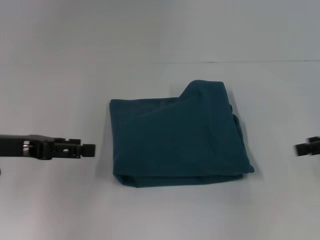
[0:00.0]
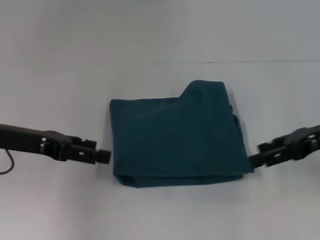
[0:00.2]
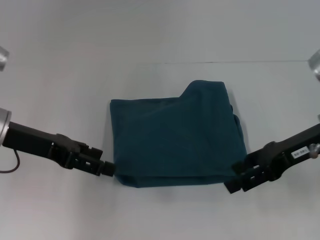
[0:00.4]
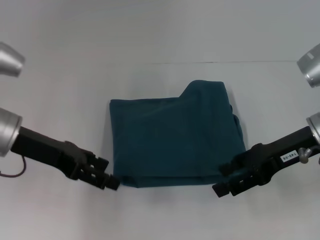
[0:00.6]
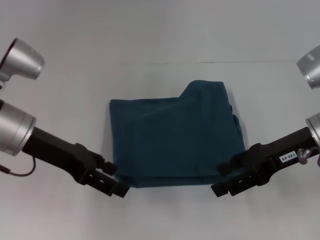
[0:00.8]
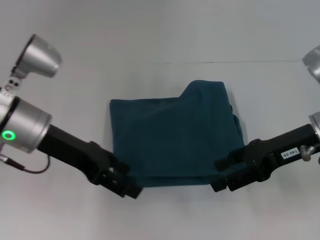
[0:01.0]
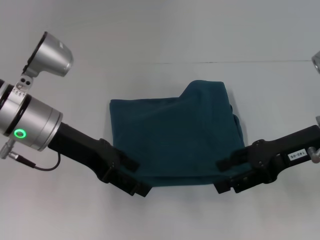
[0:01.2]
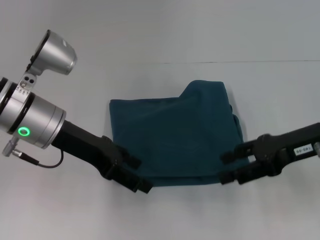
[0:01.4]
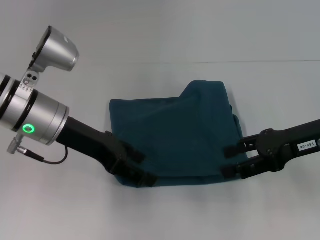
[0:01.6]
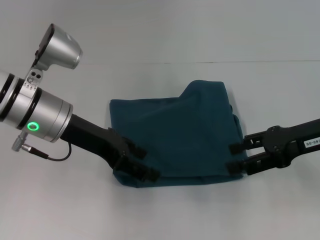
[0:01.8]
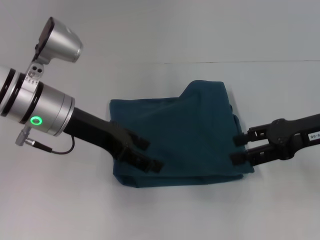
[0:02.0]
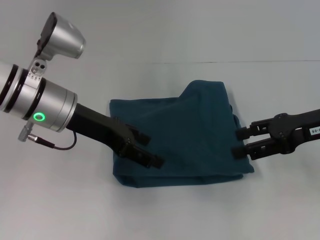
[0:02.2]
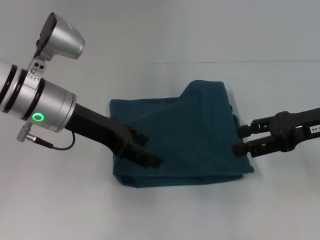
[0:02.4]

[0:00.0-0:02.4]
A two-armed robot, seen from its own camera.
0:00.0 to 0:01.2: The left gripper is displaced to the right by some 10 cm, while the right gripper moves to the left, approximately 10 cm.
0:01.2 to 0:02.4: There are only small adjustments of the grippers.

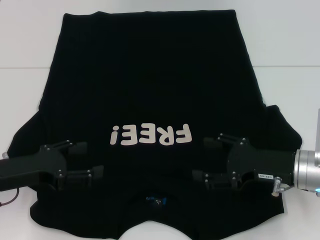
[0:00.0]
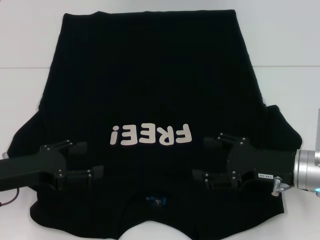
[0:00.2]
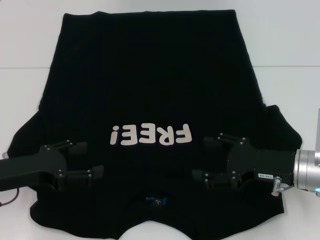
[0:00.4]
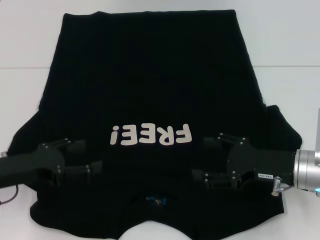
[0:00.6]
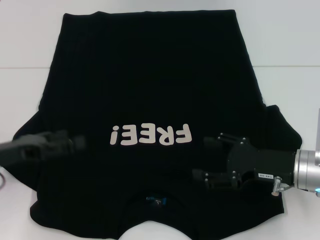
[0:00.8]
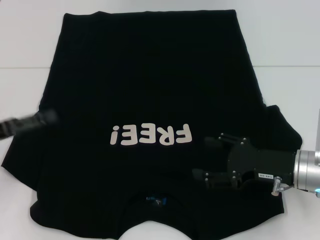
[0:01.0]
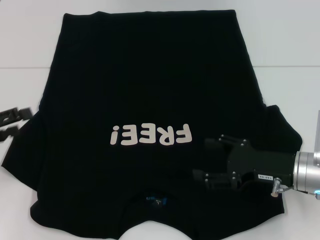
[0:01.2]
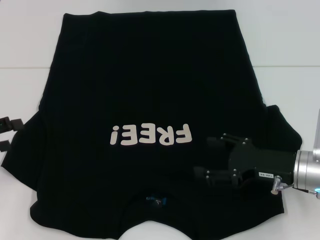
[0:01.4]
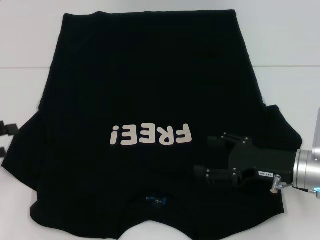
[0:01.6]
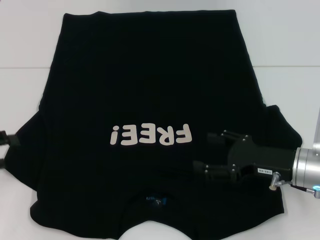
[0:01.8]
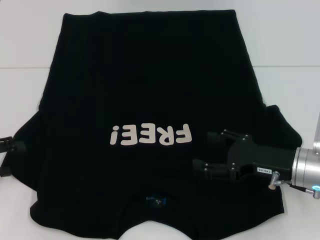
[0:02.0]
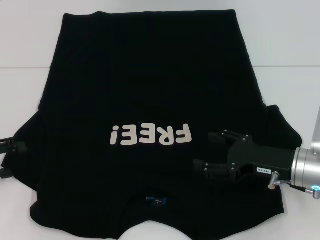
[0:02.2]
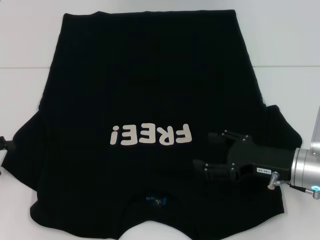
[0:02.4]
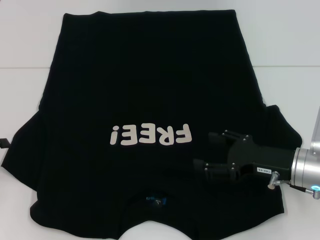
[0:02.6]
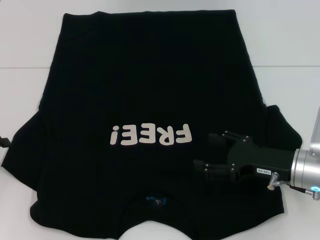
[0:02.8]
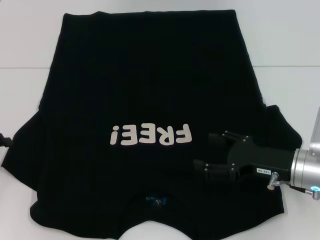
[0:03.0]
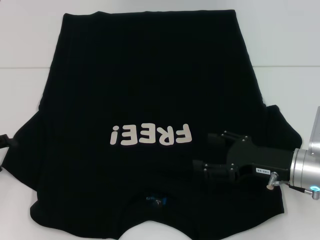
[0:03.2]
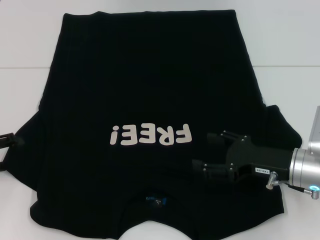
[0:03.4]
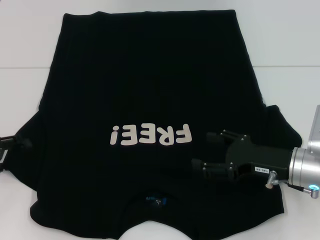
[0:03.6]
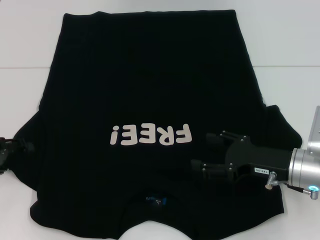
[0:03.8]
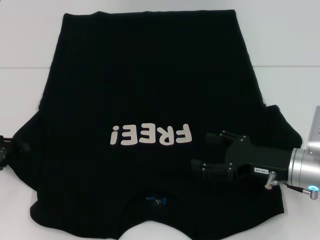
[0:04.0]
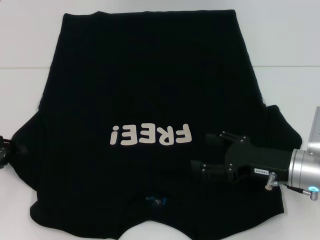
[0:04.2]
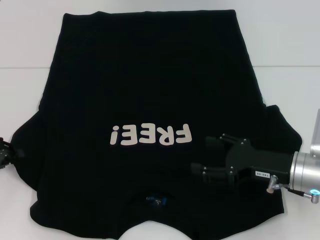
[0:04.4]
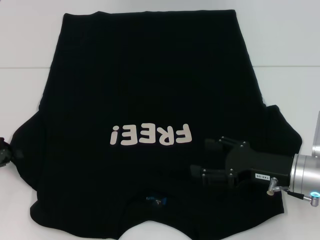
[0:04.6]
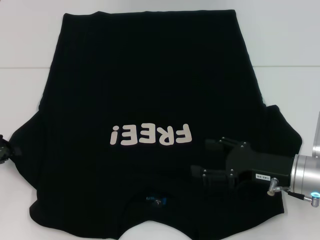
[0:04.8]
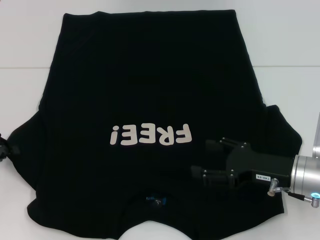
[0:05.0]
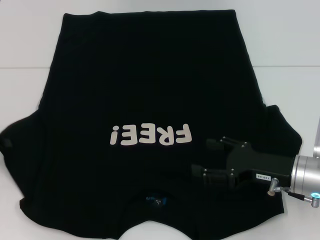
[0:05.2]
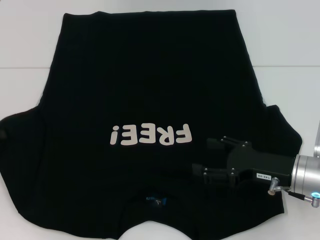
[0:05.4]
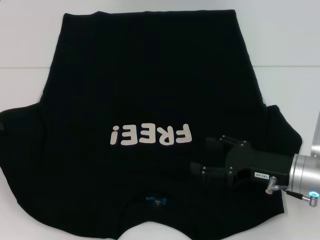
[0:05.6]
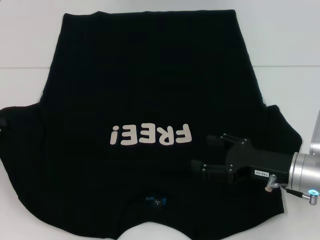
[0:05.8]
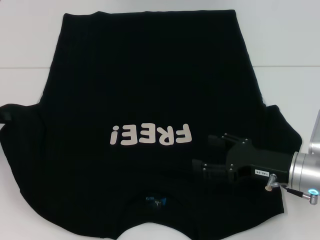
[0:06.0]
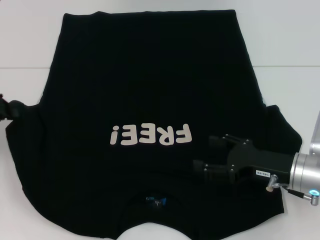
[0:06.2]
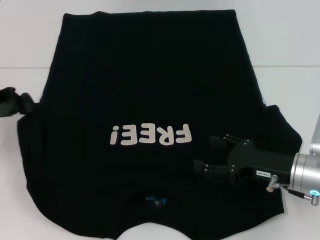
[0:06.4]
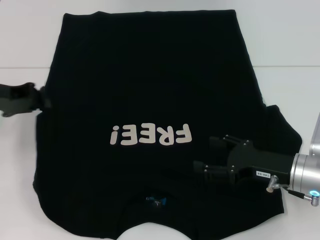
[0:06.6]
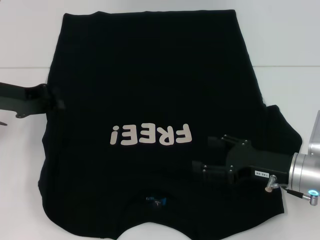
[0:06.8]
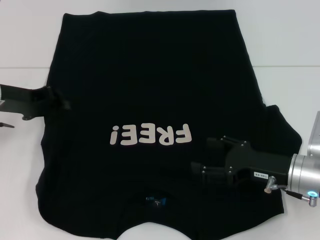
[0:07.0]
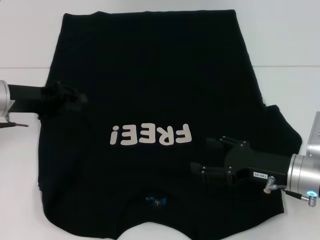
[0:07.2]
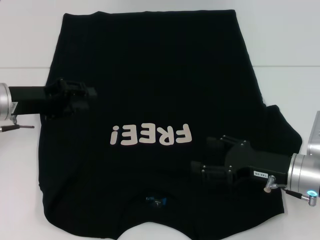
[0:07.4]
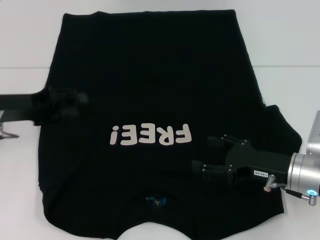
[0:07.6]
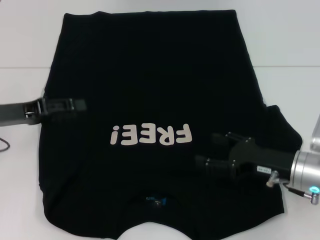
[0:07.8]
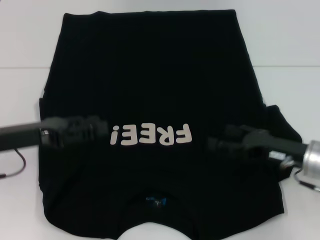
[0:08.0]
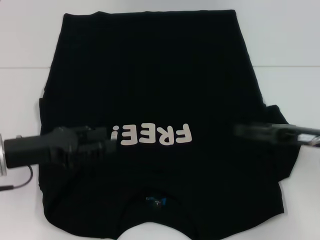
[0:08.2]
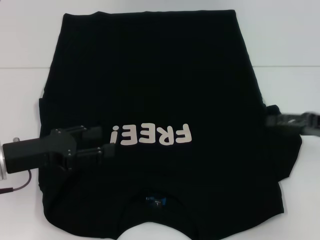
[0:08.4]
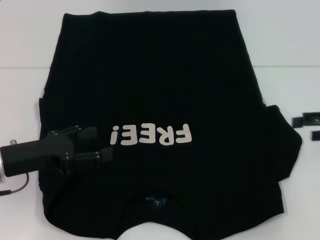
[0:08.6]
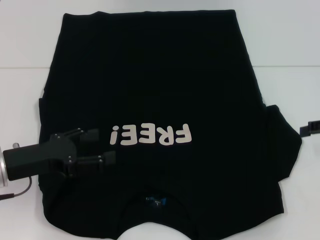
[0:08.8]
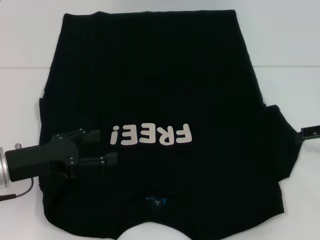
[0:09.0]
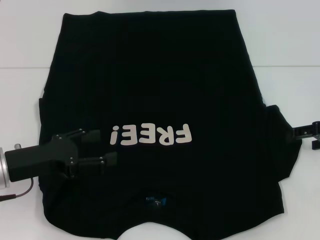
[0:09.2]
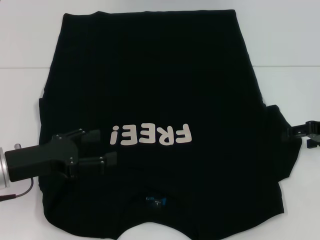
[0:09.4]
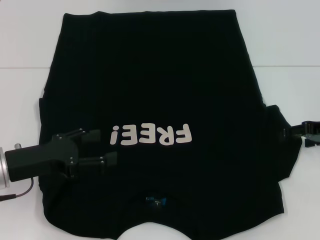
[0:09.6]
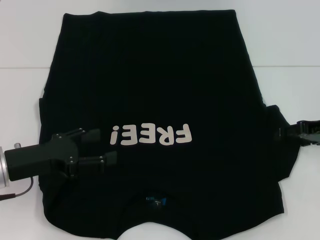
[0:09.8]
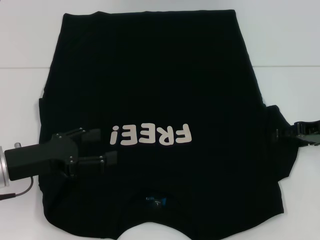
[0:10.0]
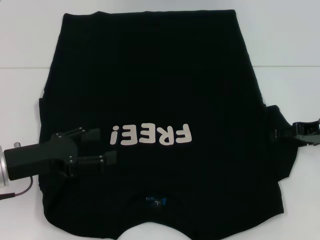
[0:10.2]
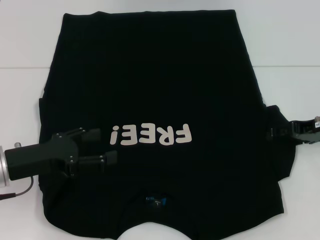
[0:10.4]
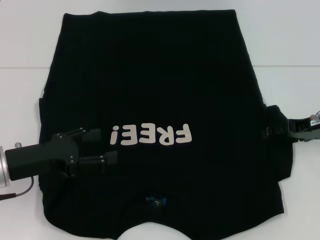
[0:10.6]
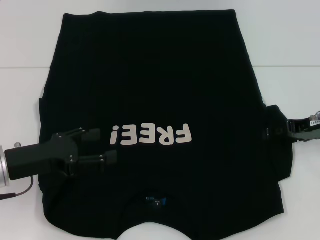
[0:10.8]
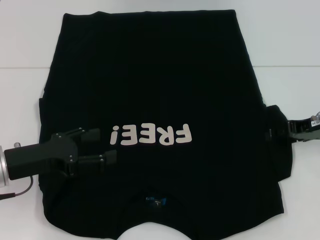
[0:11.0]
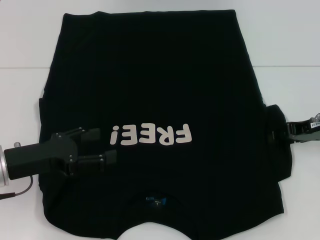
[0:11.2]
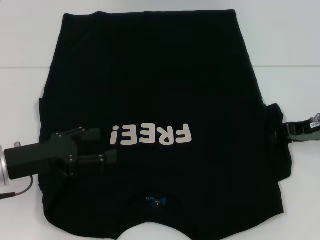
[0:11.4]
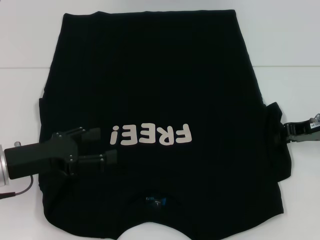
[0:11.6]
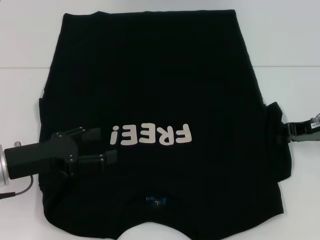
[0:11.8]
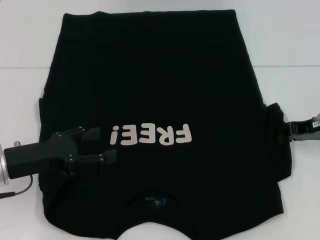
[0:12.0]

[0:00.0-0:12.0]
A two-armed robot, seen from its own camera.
Step, 0:00.0 to 0:07.4: Fold the bottom left sleeve with your left hand.
0:00.0 to 0:01.6: The left gripper heads to the left, covering approximately 10 cm.
0:01.6 to 0:03.0: There are only small adjustments of the grippers.
0:03.0 to 0:04.4: The left gripper closes up.
0:04.4 to 0:06.0: The left gripper goes some 5 cm upward, and closes up.
0:06.0 to 0:07.6: The left gripper goes approximately 10 cm to the right, and opens up.
0:07.6 to 0:09.0: The right gripper goes approximately 15 cm to the right, upward and forward; the left gripper is displaced backward by about 10 cm, and opens.
0:09.0 to 0:10.4: The right gripper goes about 5 cm to the left.
0:10.4 to 0:12.0: The right gripper closes its fingers.

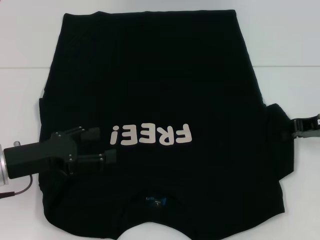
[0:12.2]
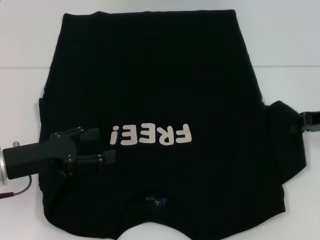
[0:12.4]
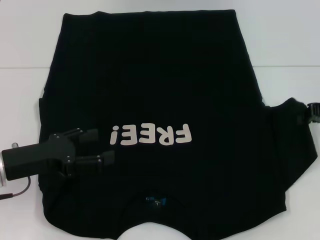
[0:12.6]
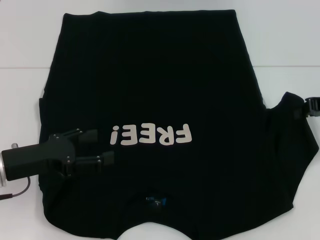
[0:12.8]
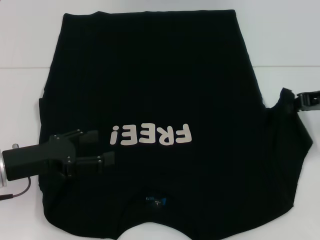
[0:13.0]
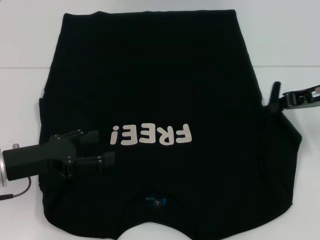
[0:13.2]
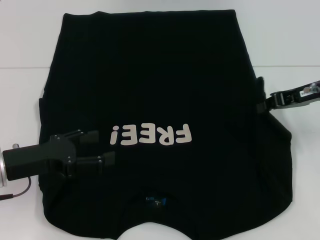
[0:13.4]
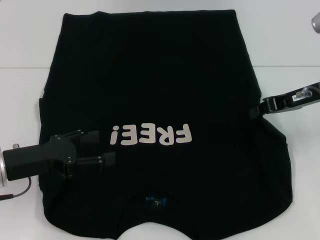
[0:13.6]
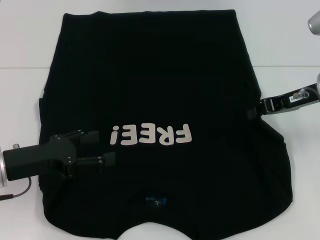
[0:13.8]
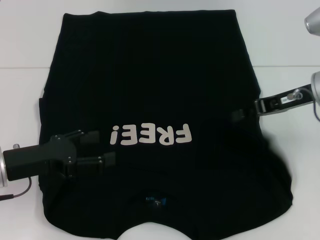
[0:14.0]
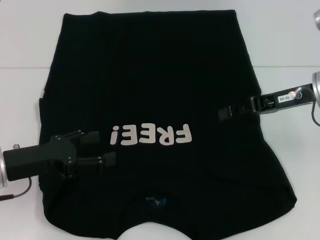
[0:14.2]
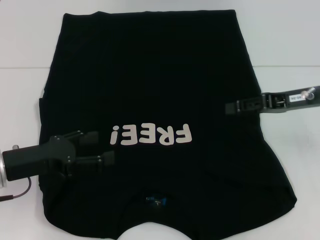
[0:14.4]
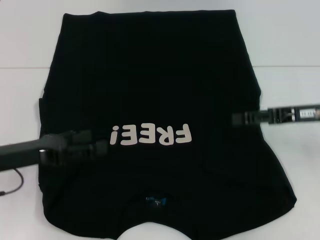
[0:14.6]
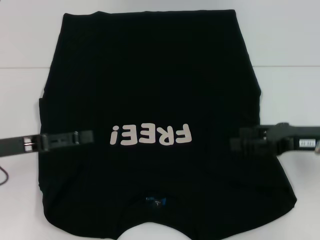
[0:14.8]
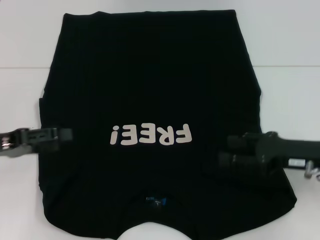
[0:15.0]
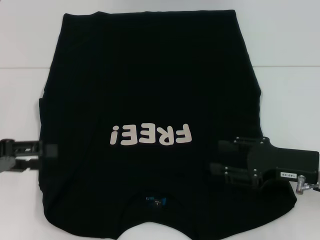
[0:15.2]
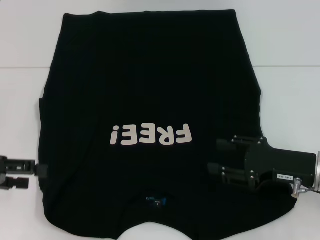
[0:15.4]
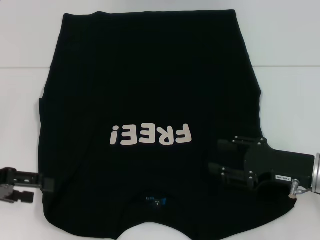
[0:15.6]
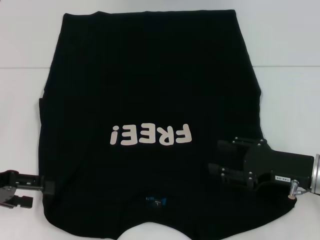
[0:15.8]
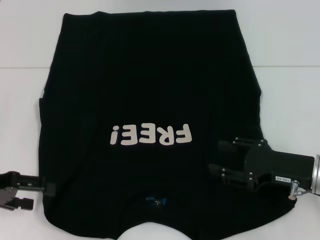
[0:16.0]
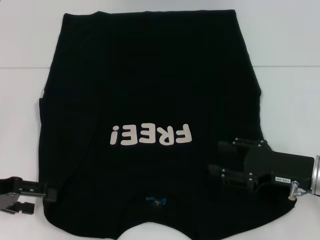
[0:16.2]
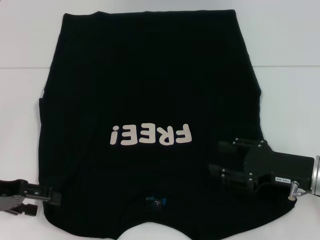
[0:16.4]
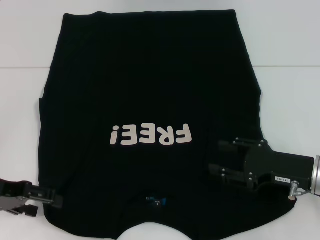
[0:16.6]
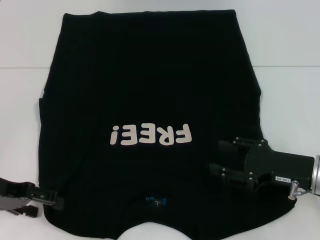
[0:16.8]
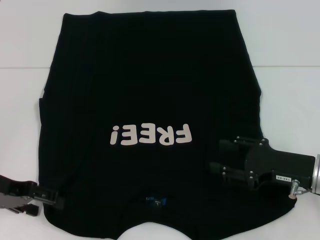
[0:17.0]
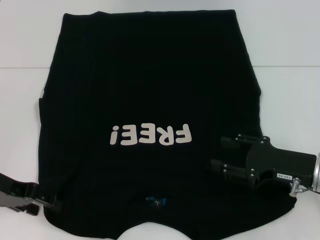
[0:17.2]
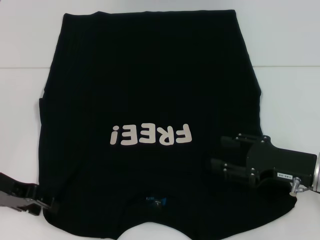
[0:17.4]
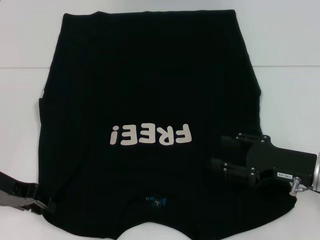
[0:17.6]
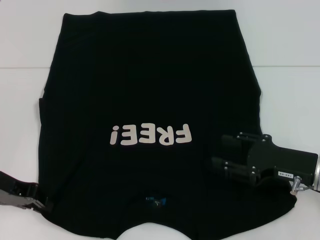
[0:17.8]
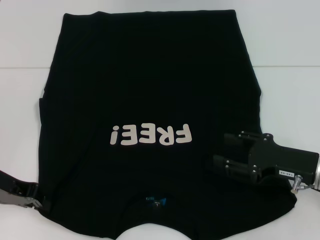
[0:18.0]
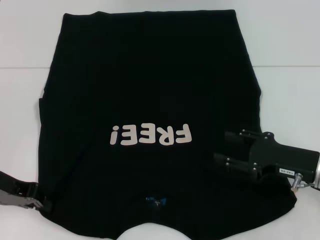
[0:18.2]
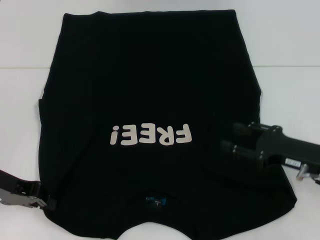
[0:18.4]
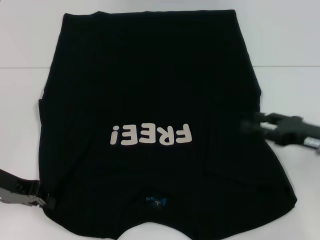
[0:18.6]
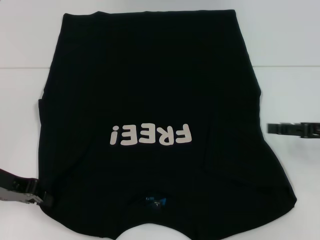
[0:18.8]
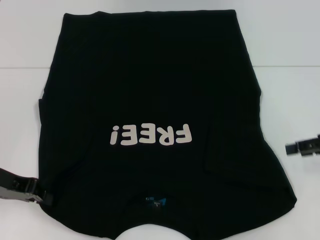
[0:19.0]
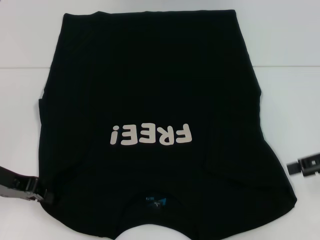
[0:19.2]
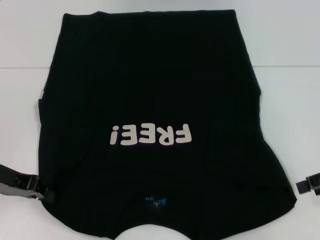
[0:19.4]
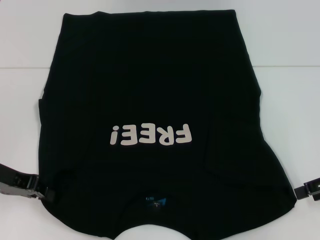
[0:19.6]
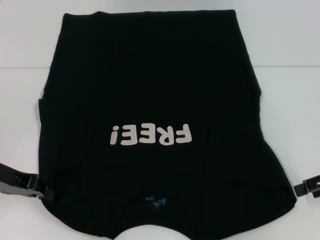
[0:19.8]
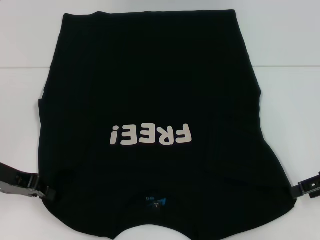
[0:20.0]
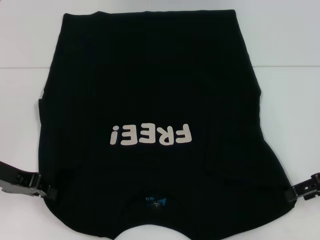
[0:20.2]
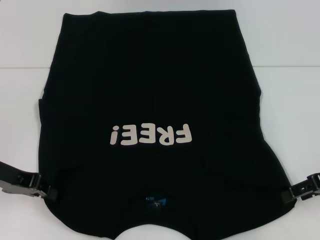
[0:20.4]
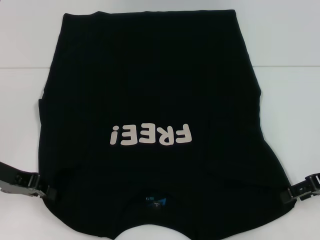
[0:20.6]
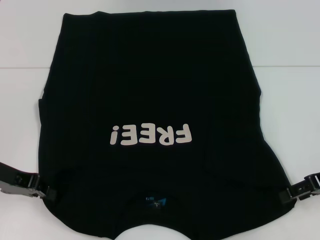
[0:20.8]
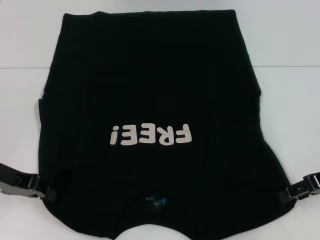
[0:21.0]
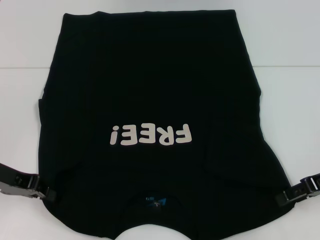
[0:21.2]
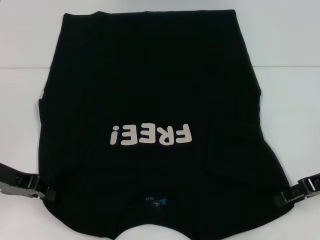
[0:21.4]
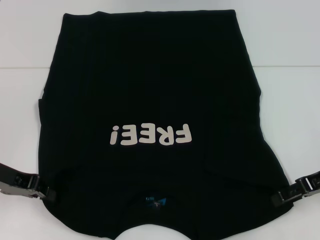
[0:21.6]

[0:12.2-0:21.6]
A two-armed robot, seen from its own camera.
Step, 0:12.2 to 0:14.6: Fold the bottom right sleeve with your right hand.
Step, 0:14.8 to 0:18.8: Grab the bottom left corner with your left hand.
0:12.2 to 0:13.8: The right gripper changes place by about 5 cm.
0:13.8 to 0:15.4: The right gripper moves backward and downward, some 15 cm, and opens its fingers, while the left gripper shifts some 10 cm to the left and upward.
0:15.4 to 0:17.0: The left gripper moves roughly 5 cm.
0:17.0 to 0:18.4: The left gripper closes up.
0:18.4 to 0:20.0: The right gripper shifts roughly 10 cm to the right and upward.
0:20.0 to 0:21.6: The grippers make only small movements.
